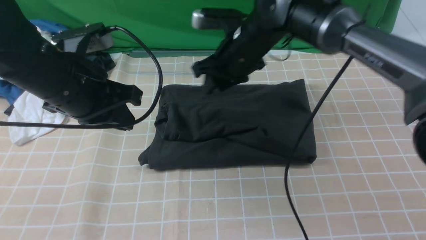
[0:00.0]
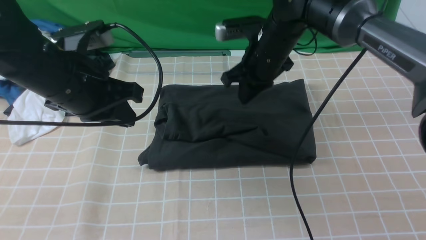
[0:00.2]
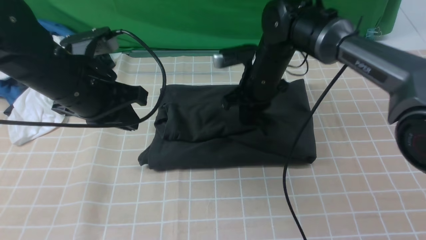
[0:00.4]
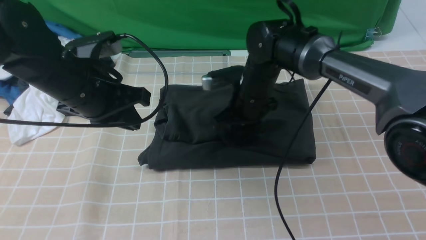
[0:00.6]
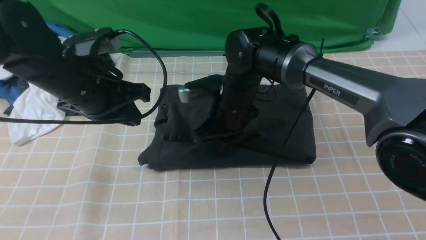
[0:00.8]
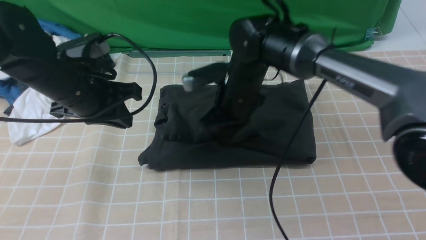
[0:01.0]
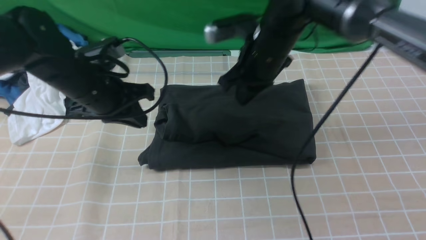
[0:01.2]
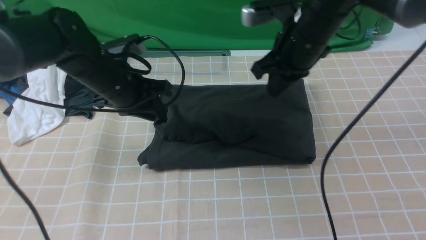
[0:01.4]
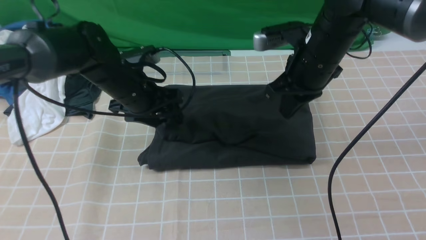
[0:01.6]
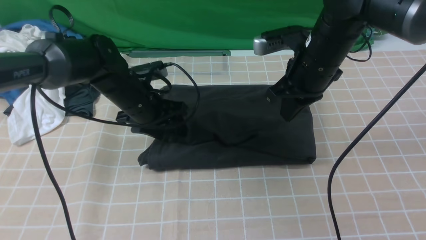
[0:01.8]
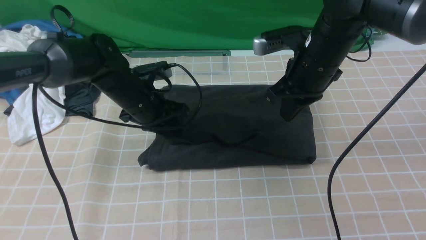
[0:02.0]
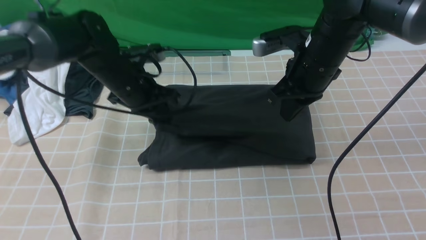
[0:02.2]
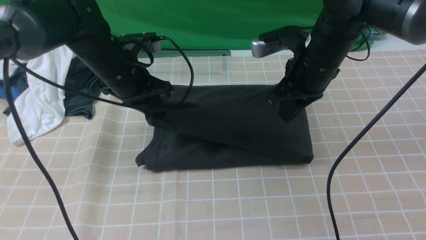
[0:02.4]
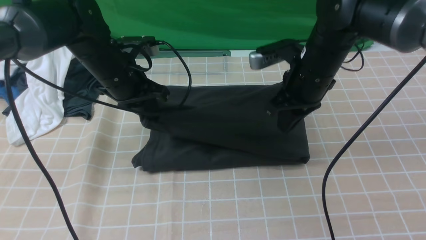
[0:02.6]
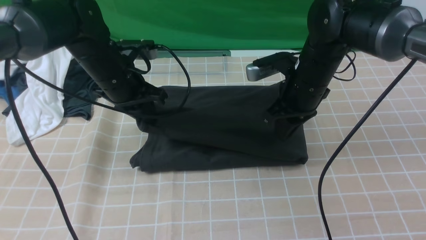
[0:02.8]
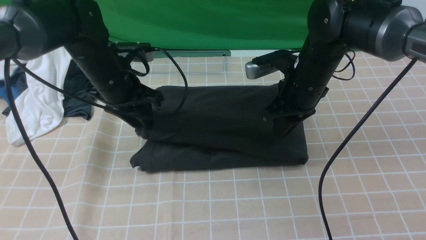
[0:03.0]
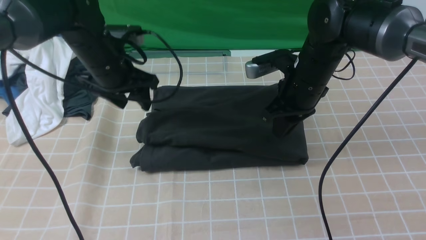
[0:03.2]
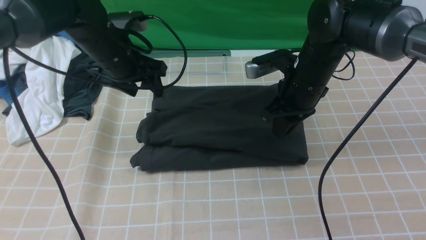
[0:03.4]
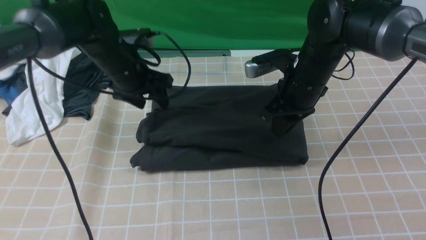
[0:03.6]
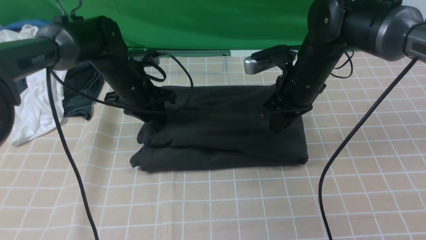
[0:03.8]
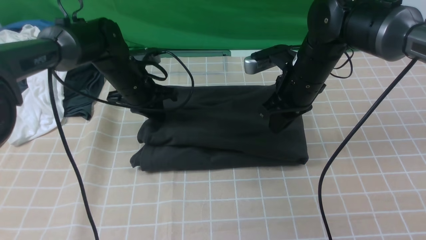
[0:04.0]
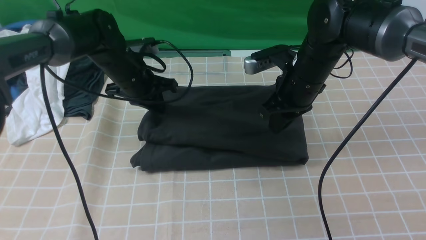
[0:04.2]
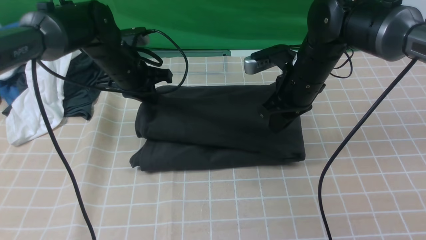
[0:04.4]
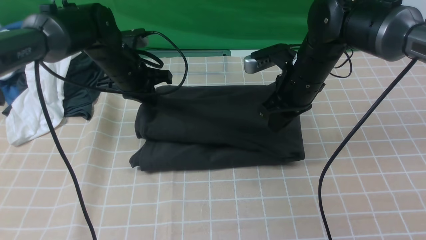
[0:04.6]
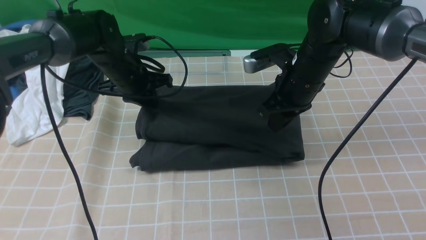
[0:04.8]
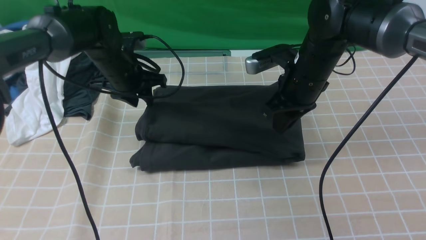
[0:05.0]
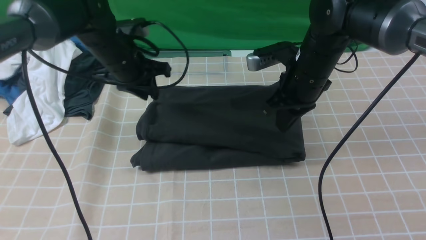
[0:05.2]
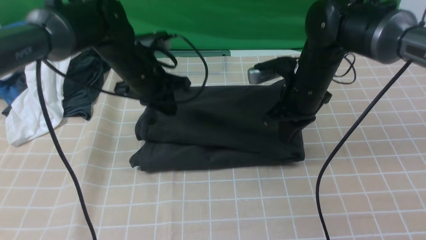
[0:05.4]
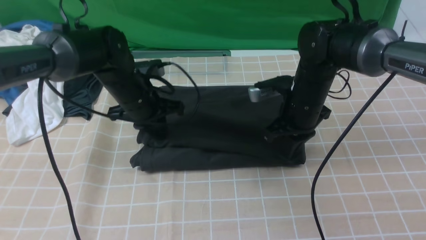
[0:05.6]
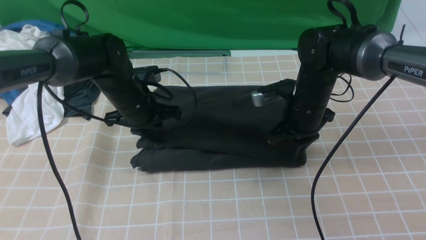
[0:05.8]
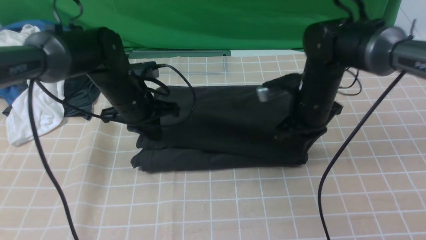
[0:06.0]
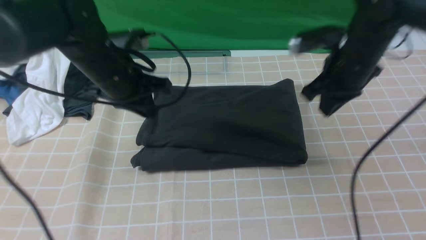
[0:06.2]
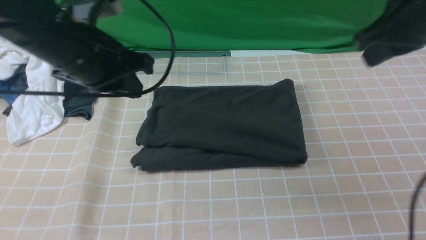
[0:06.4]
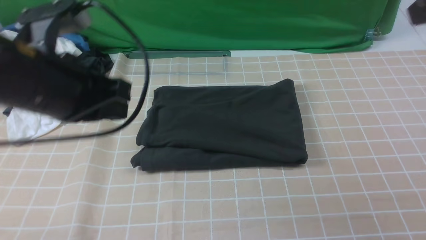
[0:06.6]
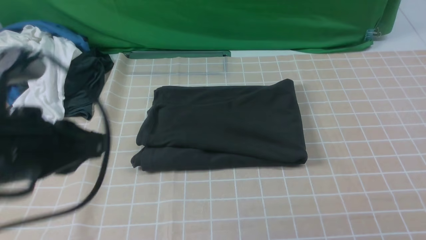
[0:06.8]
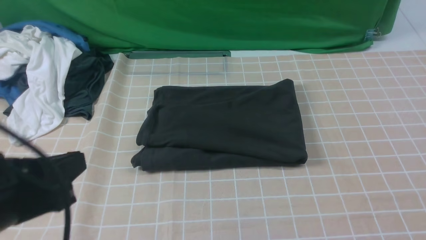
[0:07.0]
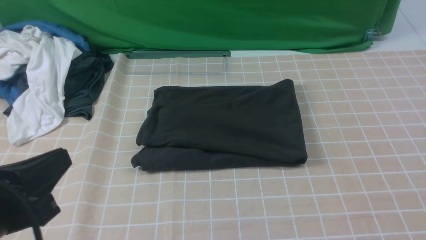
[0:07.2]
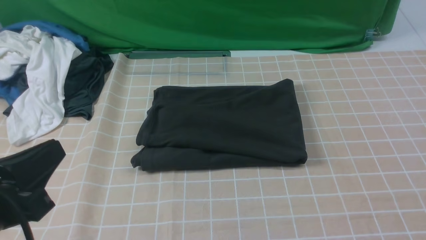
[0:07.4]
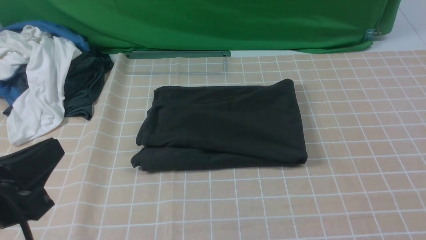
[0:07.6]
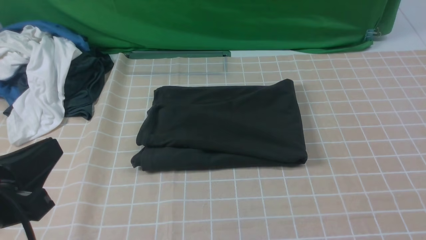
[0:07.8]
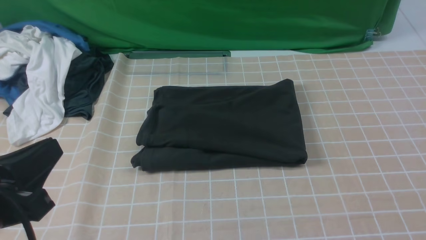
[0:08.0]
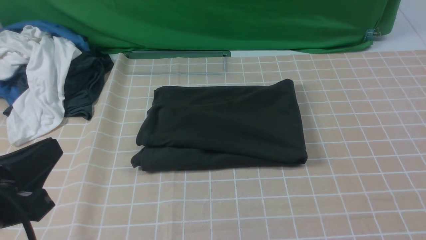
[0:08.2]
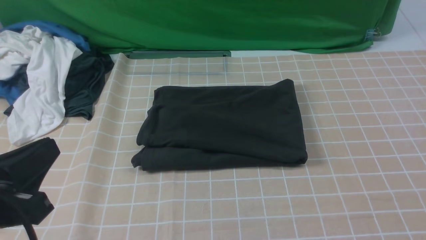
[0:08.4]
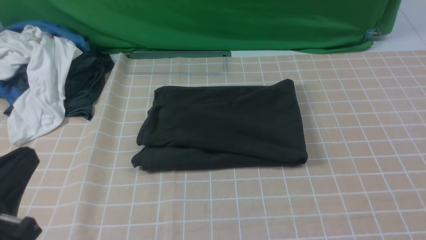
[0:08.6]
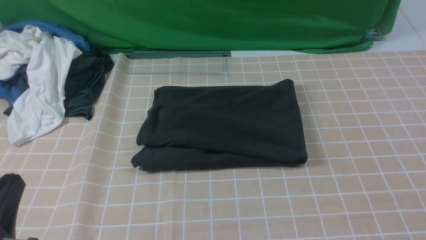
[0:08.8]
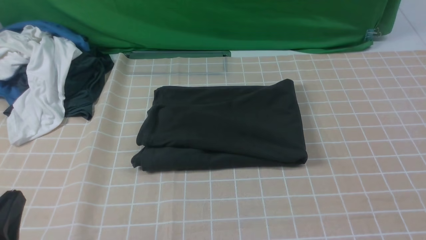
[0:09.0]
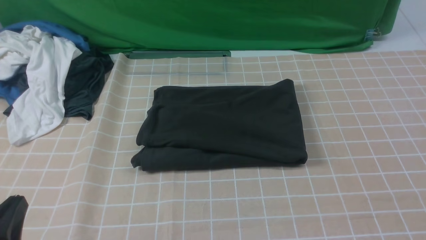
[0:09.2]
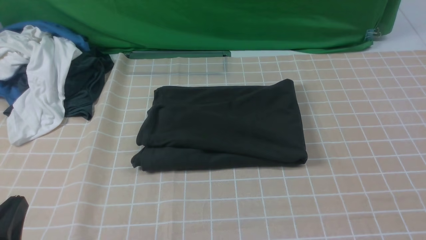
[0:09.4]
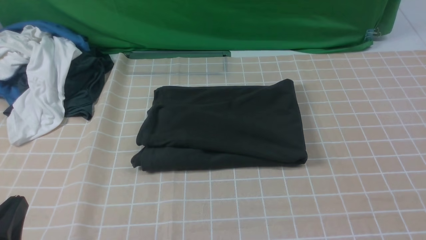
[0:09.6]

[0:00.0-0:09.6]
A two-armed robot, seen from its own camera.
0:00.0 to 0:01.6: The right gripper travels to the right and backward by approximately 10 cm, and closes its fingers, while the left gripper travels downward and forward by about 15 cm, and opens up.
0:01.6 to 0:03.2: The right gripper moves downward, approximately 5 cm. Meanwhile the left gripper shifts by about 5 cm, and closes, then reopens.
0:03.2 to 0:04.8: The left gripper shifts by some 5 cm, and closes.
0:04.8 to 0:06.4: The right gripper goes approximately 20 cm upward, to the right and backward, and closes up. The left gripper moves backward and upward, approximately 20 cm.
0:06.4 to 0:08.0: The right gripper moves backward, approximately 30 cm. The left gripper heads backward, covering some 20 cm.
0:08.0 to 0:09.6: The left gripper travels downward by some 10 cm.

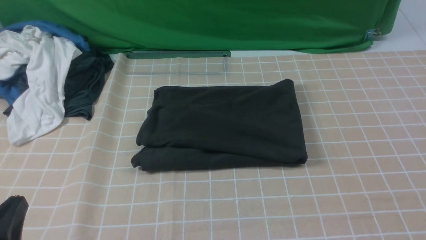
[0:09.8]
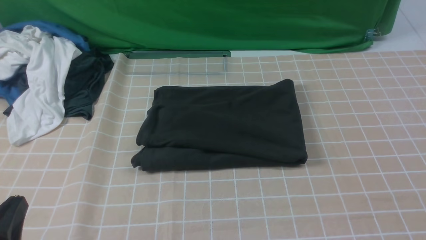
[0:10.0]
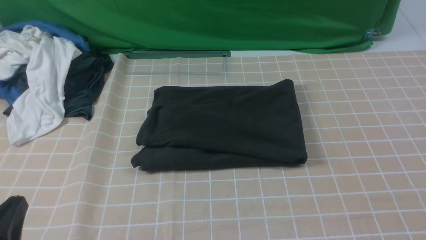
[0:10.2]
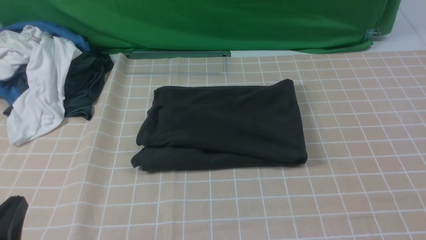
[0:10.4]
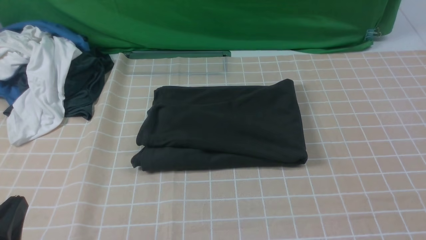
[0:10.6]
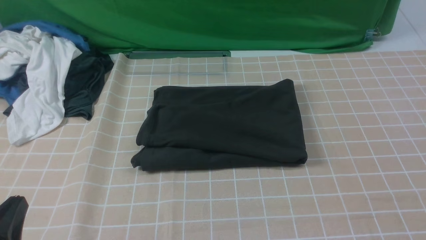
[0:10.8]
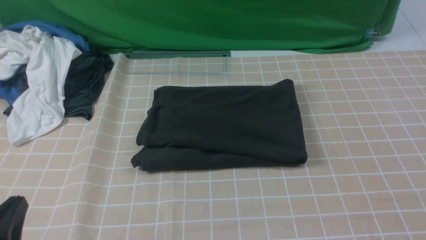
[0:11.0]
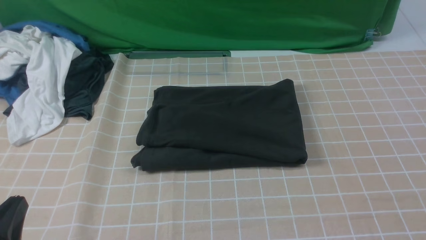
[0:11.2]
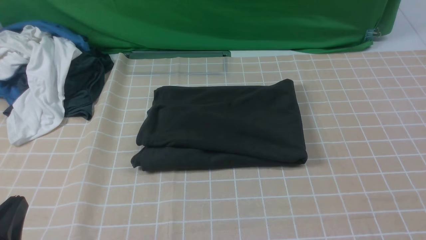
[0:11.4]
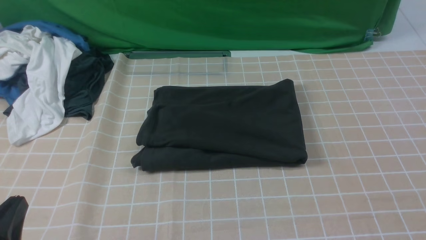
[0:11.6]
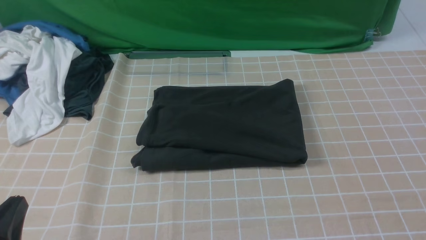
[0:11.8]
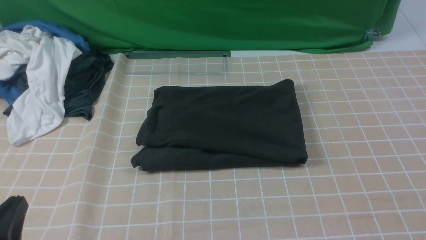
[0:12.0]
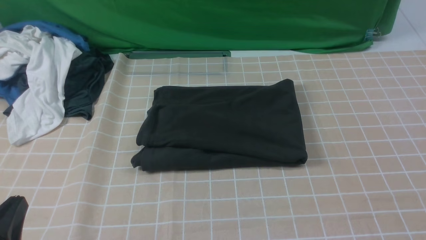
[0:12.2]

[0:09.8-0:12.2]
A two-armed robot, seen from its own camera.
0:11.0 to 0:12.2: The two grippers keep their place.

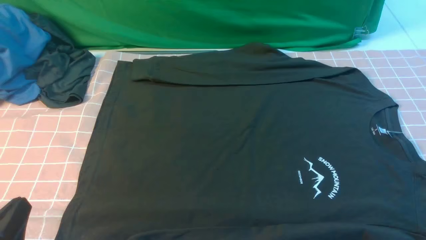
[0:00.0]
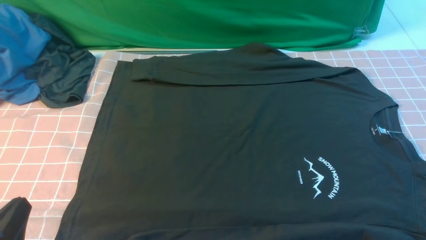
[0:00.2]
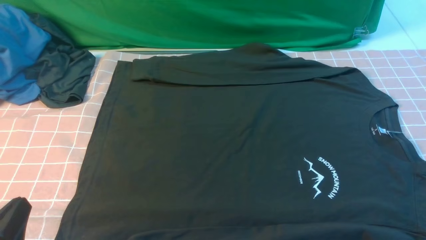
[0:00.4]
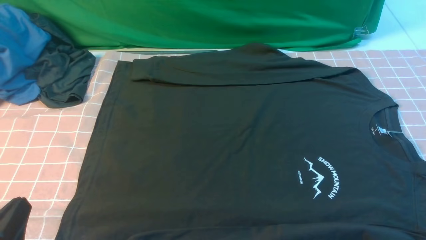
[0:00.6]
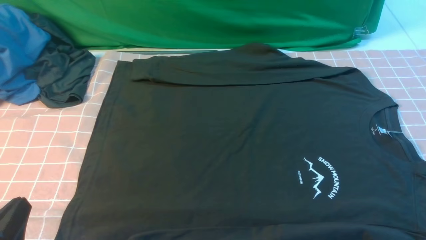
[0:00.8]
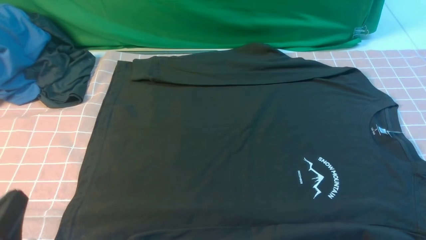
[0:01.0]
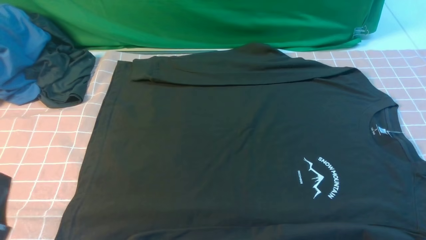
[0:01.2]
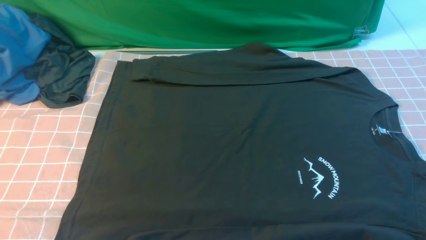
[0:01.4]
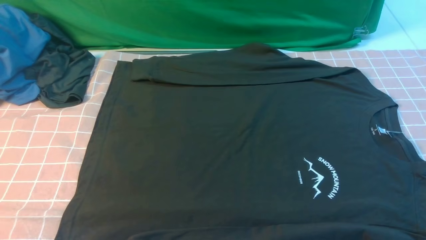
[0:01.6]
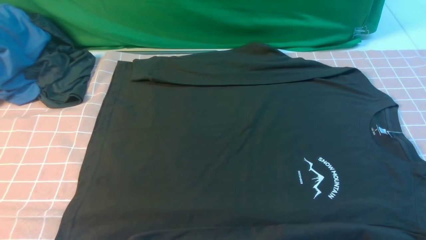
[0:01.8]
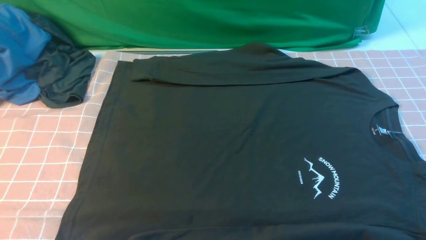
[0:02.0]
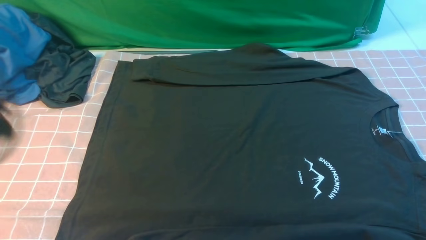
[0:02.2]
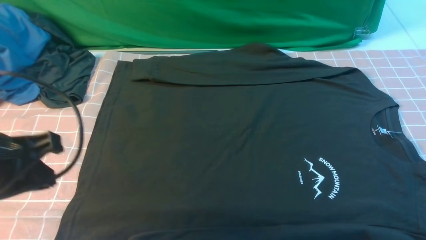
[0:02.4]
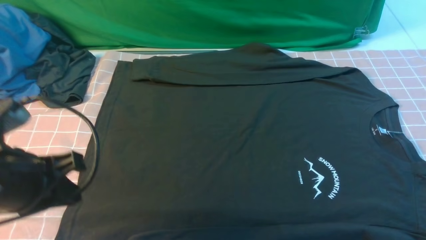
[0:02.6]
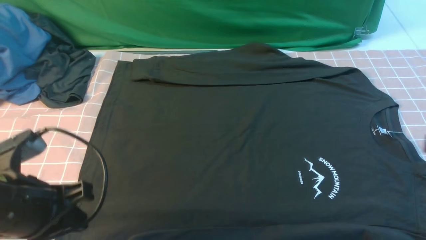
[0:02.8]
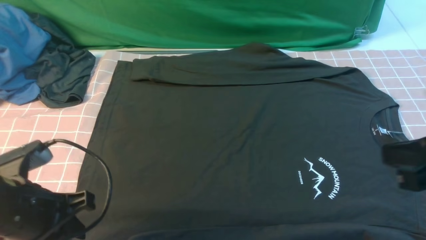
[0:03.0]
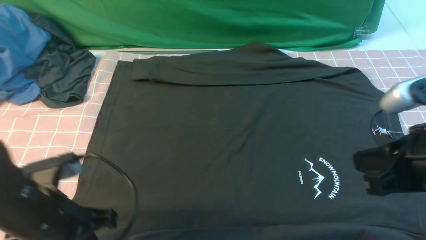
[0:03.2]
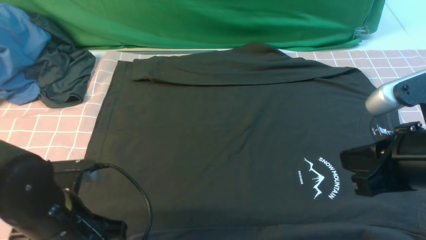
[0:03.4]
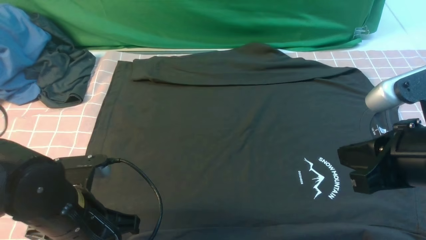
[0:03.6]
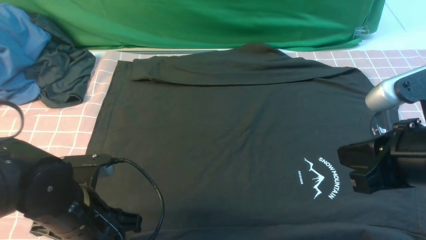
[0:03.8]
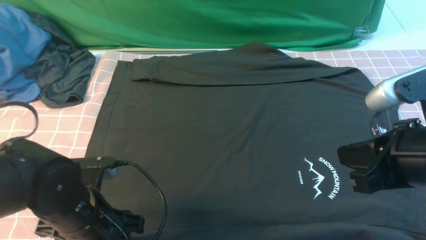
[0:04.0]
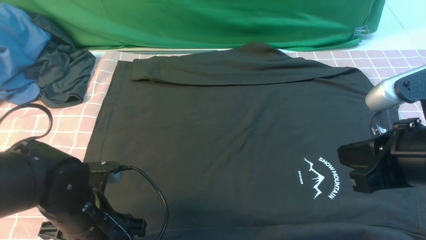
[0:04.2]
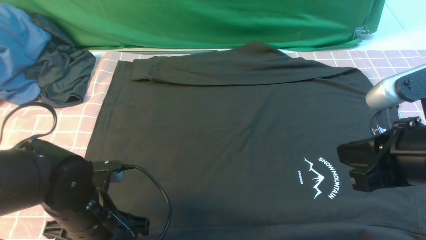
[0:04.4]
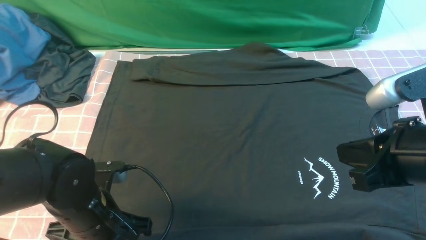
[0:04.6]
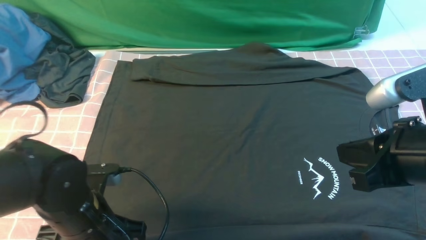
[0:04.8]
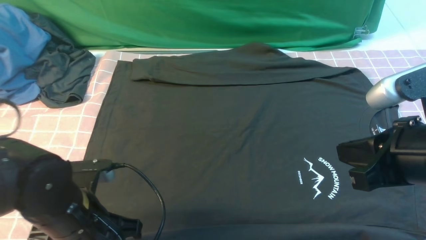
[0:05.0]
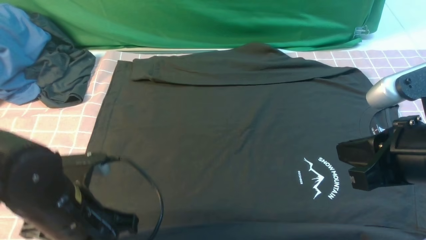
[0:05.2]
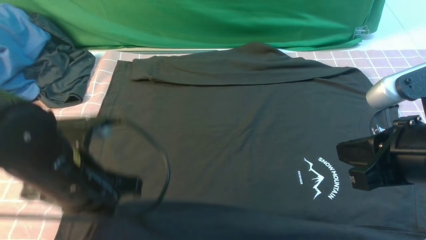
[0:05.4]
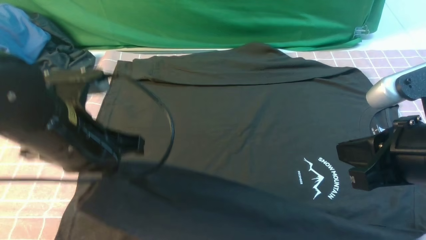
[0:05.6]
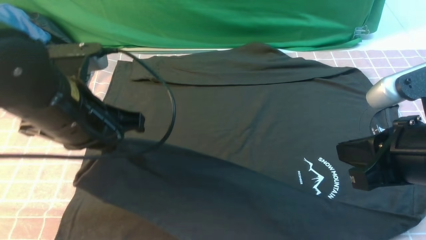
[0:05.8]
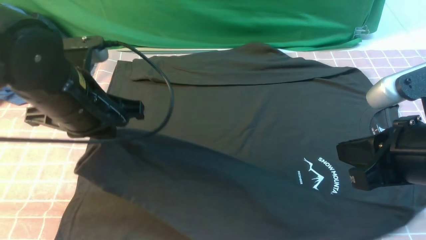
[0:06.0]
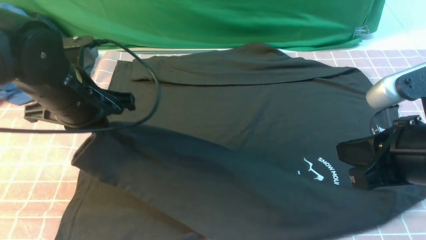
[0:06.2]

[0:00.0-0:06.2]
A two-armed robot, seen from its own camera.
Step, 0:00.0 to 0:04.6: use the left arm to clamp the cuff closest to it.
0:00.0 to 0:01.6: The left gripper travels upward by approximately 10 cm.
0:01.6 to 0:03.2: The left gripper moves forward and downward, some 15 cm. The right gripper travels forward, upward and to the left by some 15 cm, and closes up.
0:03.2 to 0:04.6: The left gripper ends up approximately 5 cm from where it was, and opens and closes again.
0:04.6 to 0:06.2: The left gripper is displaced upward and forward by roughly 15 cm.
